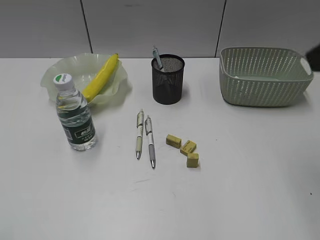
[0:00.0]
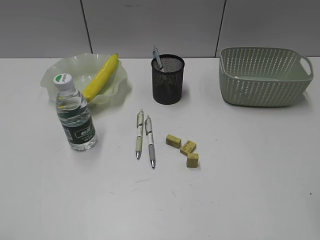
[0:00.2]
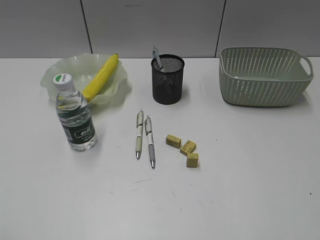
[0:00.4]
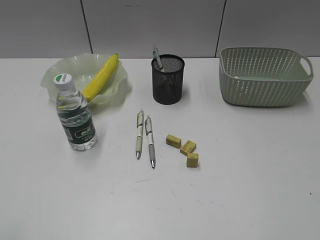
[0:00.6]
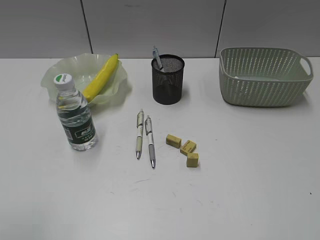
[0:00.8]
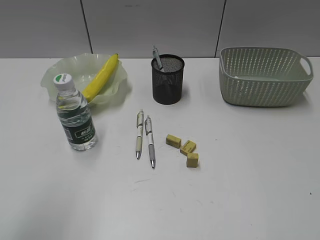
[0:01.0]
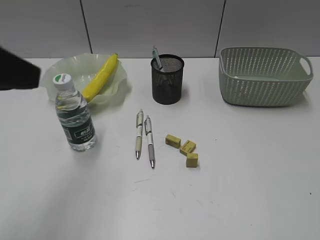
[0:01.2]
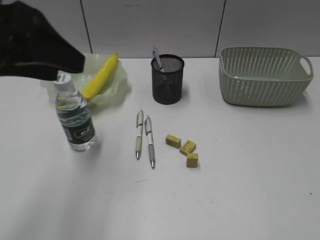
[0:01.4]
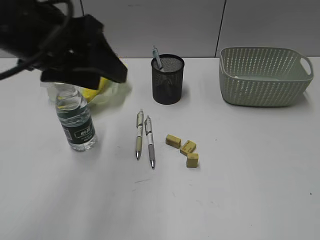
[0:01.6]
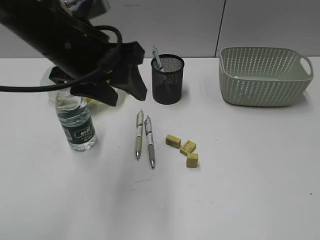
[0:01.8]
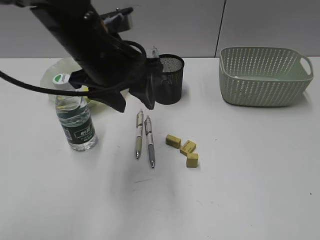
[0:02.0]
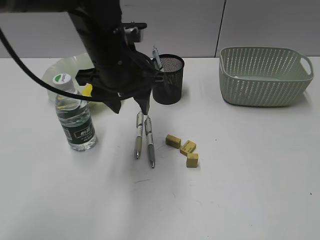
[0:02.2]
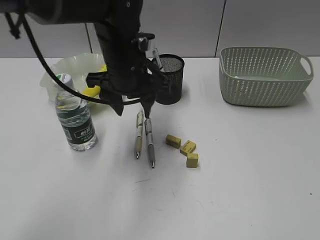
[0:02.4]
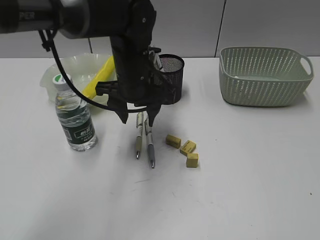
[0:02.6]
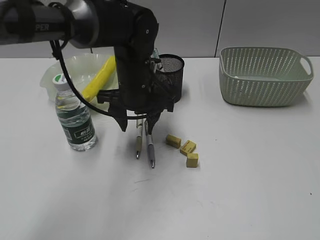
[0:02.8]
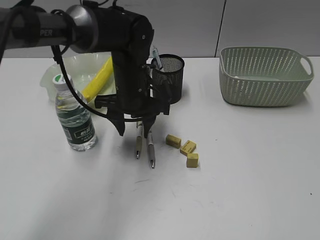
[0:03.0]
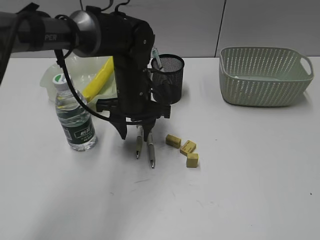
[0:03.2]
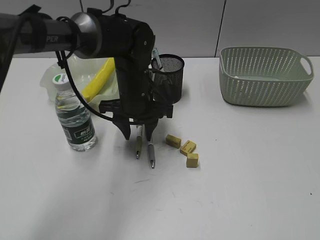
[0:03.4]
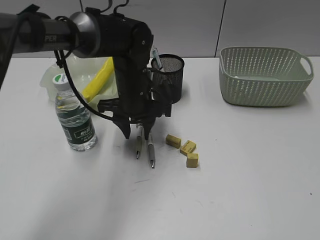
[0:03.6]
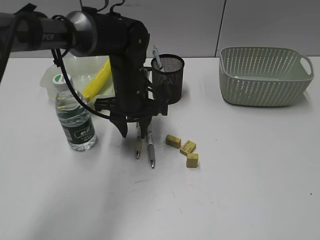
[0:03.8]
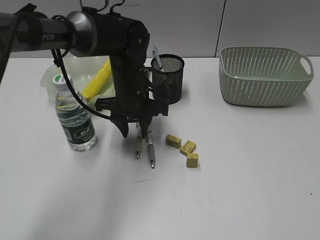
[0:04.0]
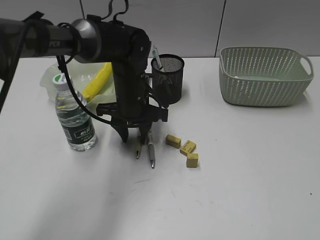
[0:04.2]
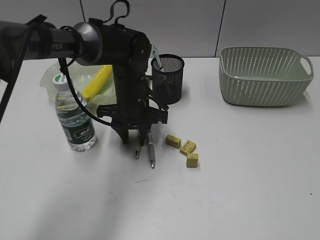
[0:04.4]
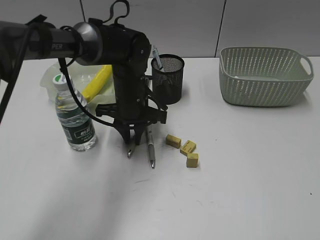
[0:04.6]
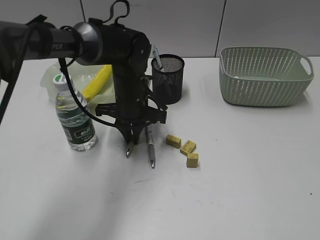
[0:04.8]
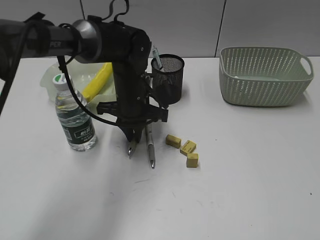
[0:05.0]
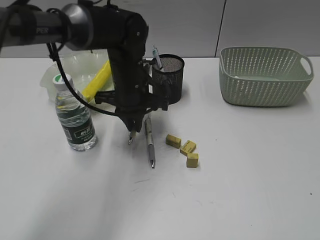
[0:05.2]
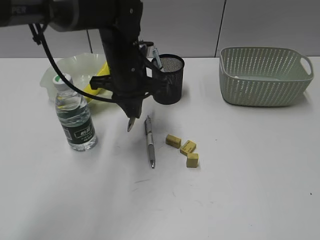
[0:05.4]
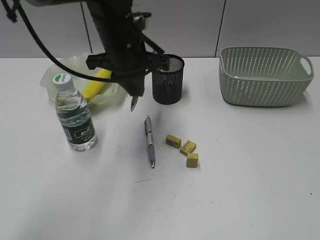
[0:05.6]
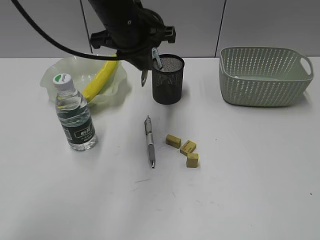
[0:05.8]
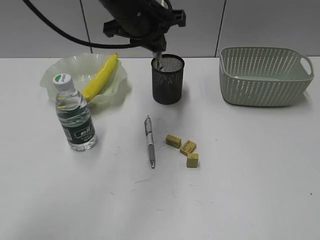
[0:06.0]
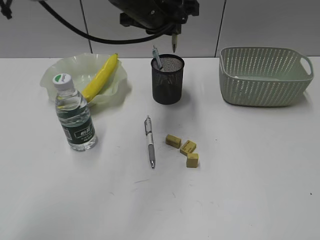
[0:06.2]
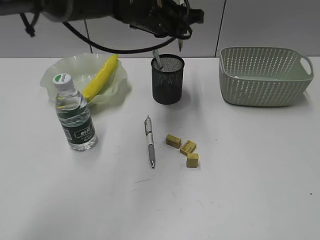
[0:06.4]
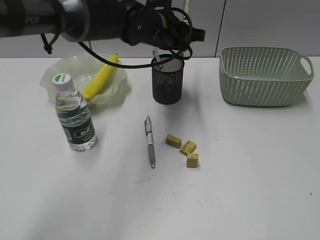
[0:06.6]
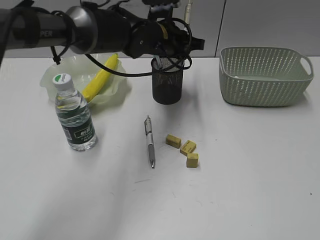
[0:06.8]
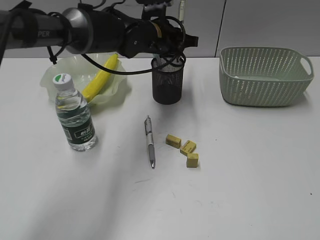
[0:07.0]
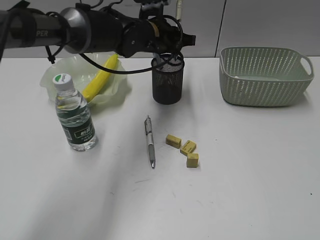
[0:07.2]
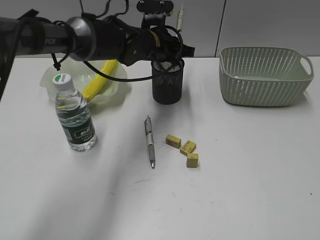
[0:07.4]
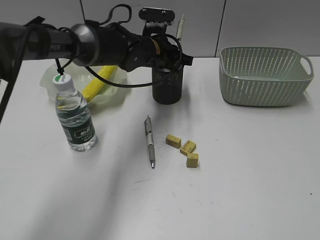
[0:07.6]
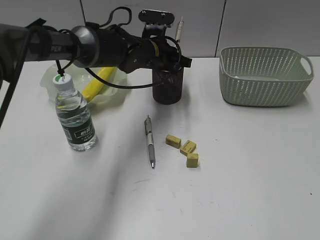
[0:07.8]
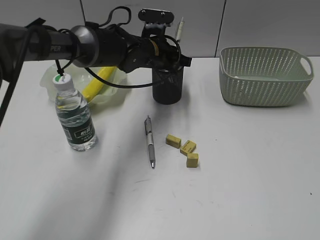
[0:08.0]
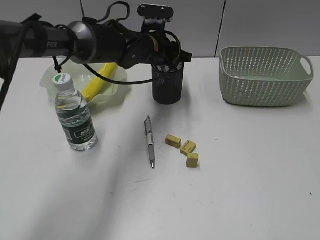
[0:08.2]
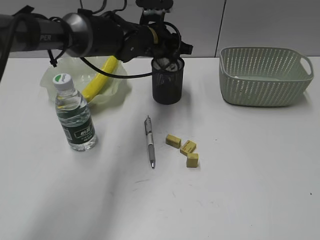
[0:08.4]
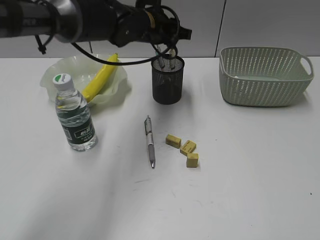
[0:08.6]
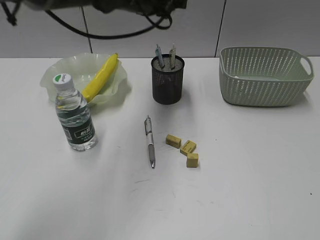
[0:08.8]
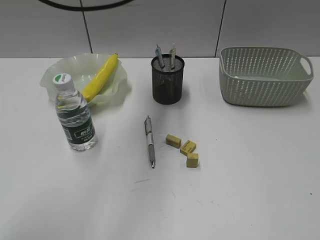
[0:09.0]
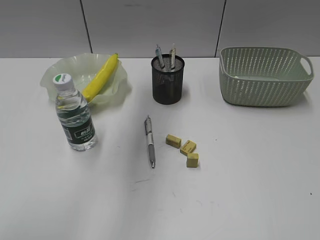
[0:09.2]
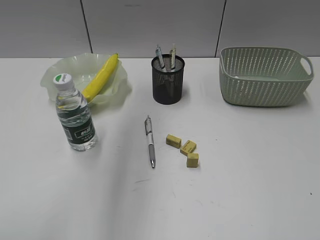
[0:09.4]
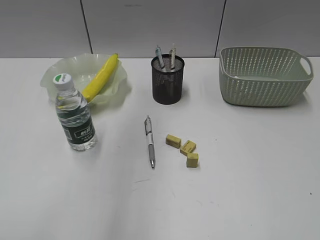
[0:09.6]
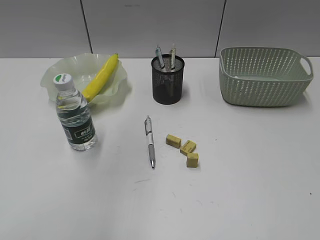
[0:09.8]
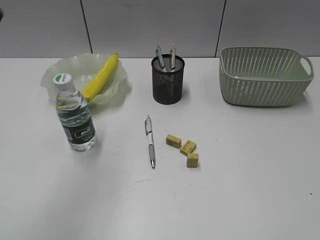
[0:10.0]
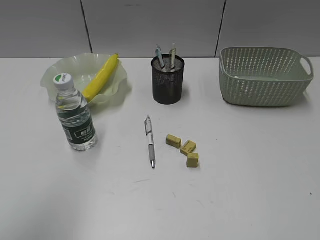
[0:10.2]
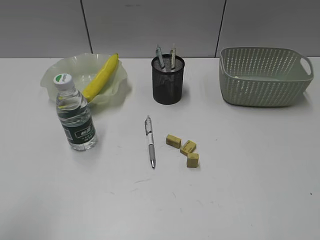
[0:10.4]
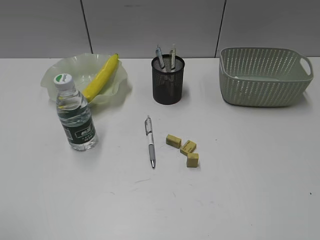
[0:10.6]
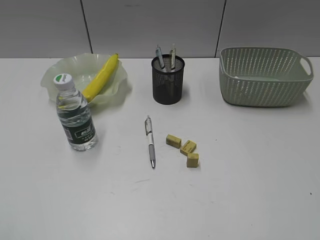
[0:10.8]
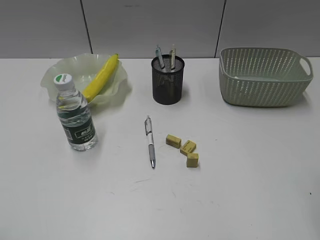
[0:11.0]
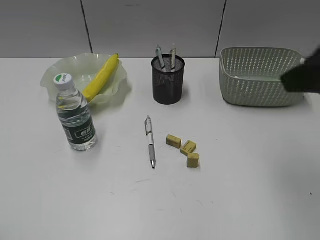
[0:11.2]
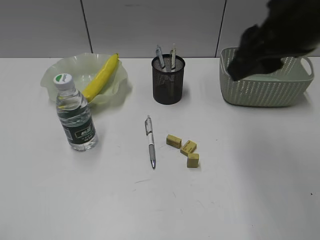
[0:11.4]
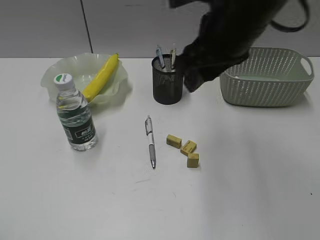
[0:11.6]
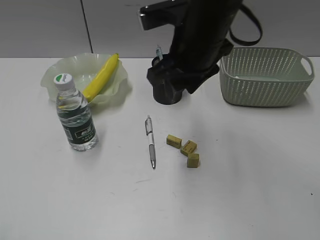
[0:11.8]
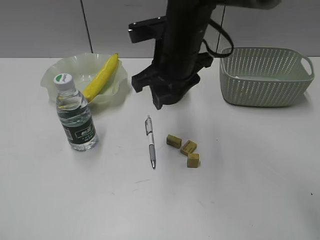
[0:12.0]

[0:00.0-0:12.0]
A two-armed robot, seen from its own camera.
Step, 0:00.0 to 0:04.8: Grasp the yellow pen with left gripper.
Step, 0:05.0 to 0:08.4: Place the yellow pen in pen holder with left gripper.
0:00.0 to 0:01.6: The left gripper moves forward and to the right, some 30 cm. The right gripper goes about 20 cm backward, to the right and downward.
0:01.6 to 0:03.0: The left gripper travels downward, forward and to the right by about 25 cm.
0:03.0 to 0:04.4: The grippers move only a little.
0:04.4 to 0:06.0: The left gripper heads upward, covering approximately 15 cm, and closes its fingers.
0:06.0 to 0:07.6: The left gripper goes about 15 cm downward and forward.
0:07.6 to 0:09.0: The left gripper is displaced upward by about 15 cm, and opens up.
0:09.0 to 0:10.4: The left gripper heads backward and to the left, covering some 40 cm.
0:10.4 to 0:12.0: The left gripper heads backward, downward and to the left, covering roughly 10 cm. Meanwhile the right gripper goes some 40 cm forward and to the left.

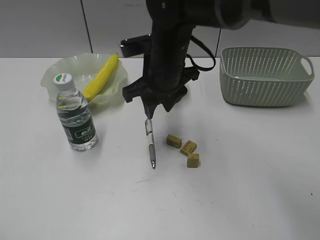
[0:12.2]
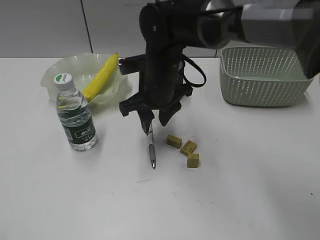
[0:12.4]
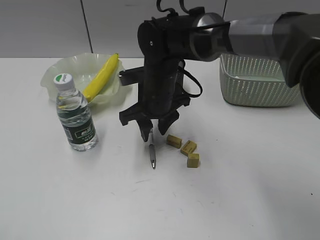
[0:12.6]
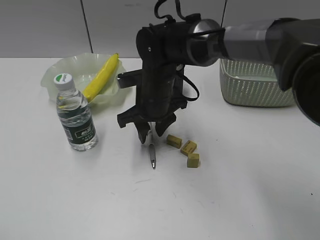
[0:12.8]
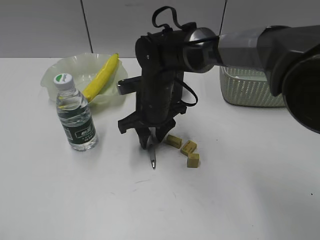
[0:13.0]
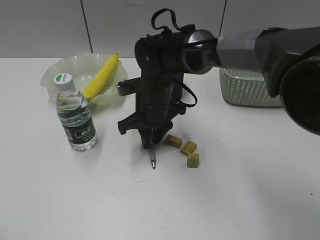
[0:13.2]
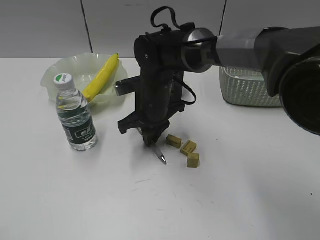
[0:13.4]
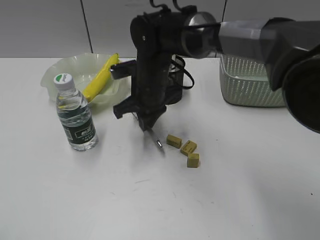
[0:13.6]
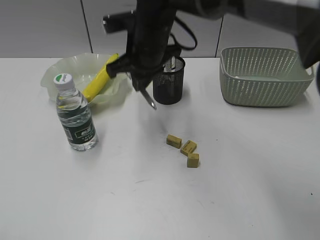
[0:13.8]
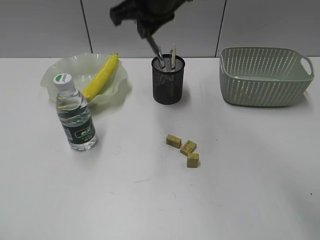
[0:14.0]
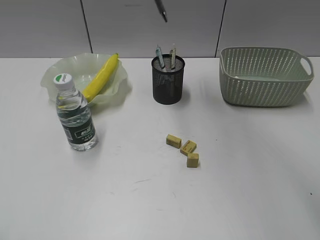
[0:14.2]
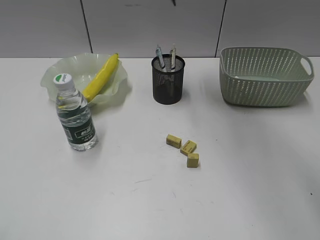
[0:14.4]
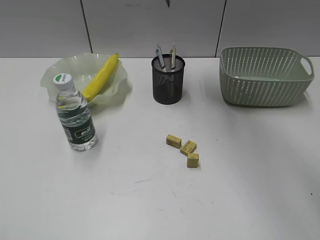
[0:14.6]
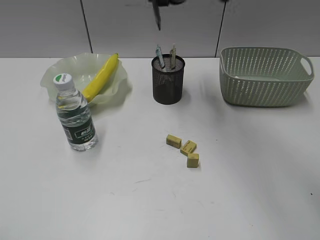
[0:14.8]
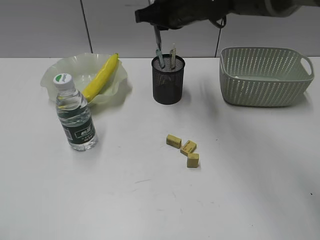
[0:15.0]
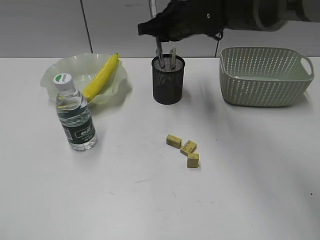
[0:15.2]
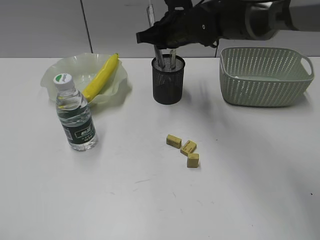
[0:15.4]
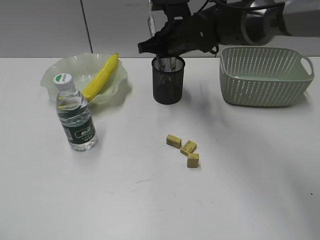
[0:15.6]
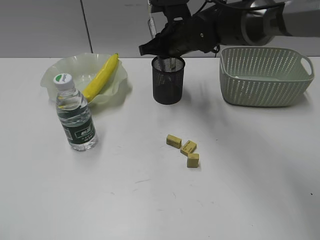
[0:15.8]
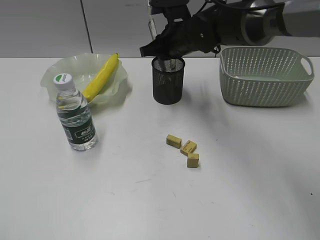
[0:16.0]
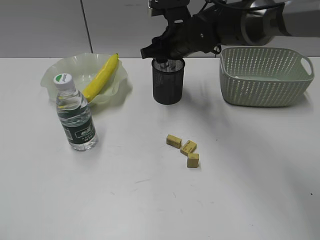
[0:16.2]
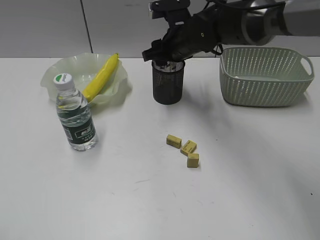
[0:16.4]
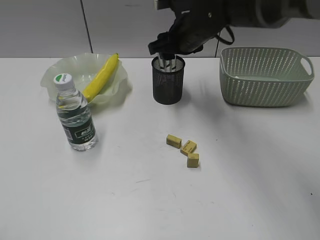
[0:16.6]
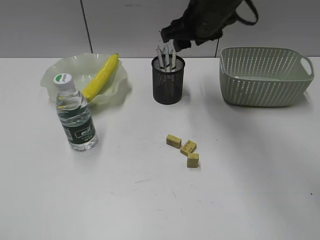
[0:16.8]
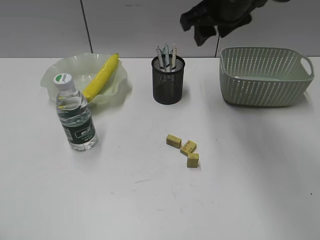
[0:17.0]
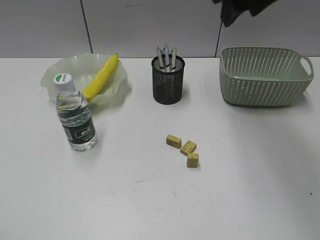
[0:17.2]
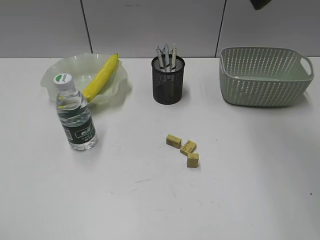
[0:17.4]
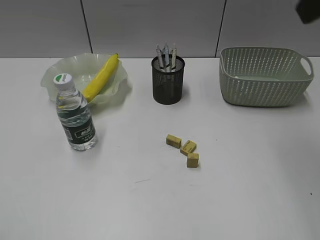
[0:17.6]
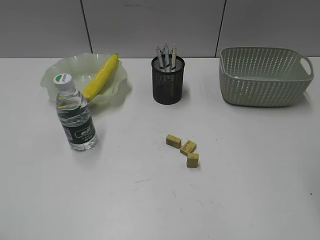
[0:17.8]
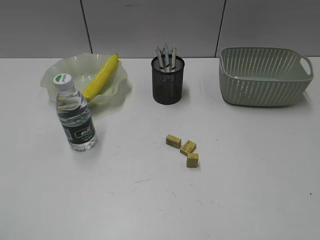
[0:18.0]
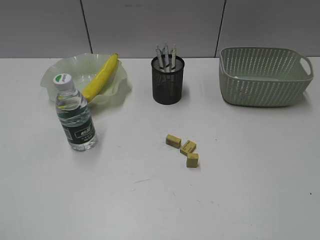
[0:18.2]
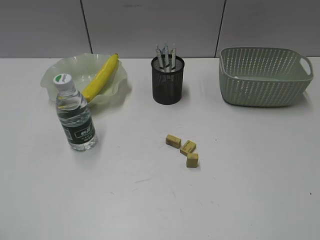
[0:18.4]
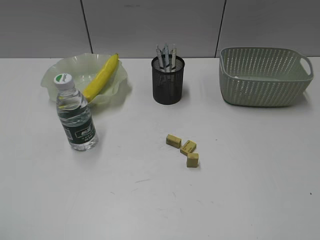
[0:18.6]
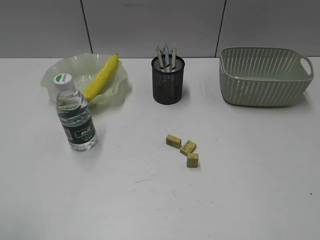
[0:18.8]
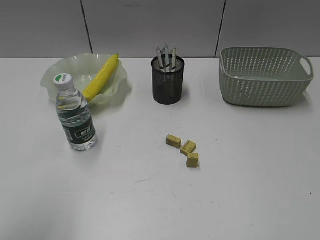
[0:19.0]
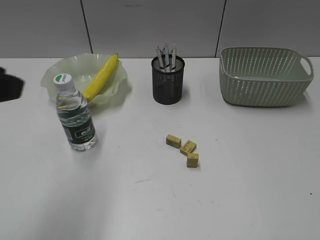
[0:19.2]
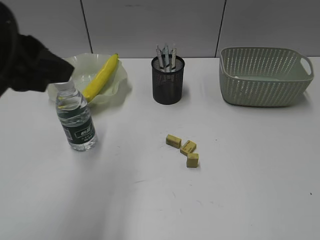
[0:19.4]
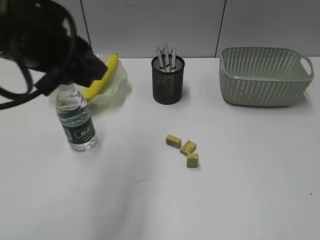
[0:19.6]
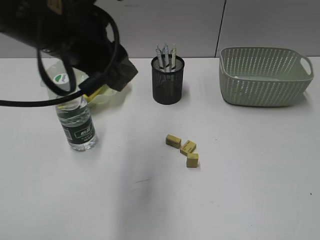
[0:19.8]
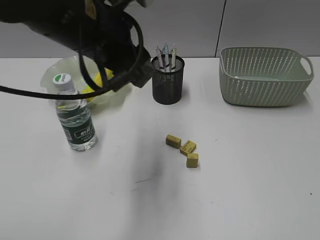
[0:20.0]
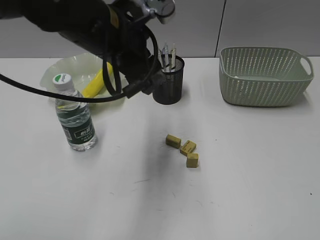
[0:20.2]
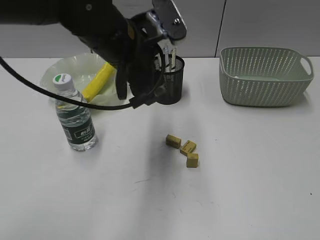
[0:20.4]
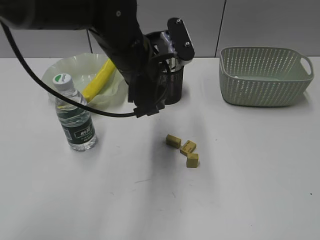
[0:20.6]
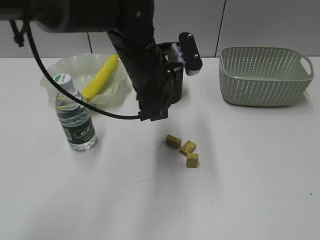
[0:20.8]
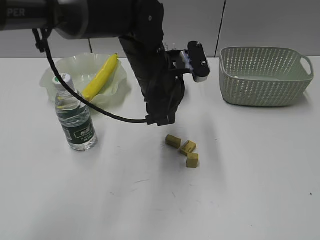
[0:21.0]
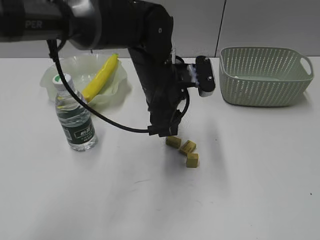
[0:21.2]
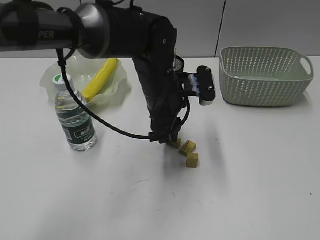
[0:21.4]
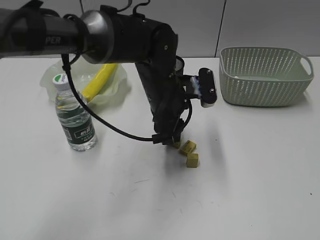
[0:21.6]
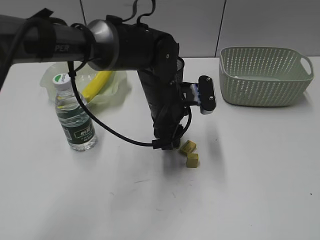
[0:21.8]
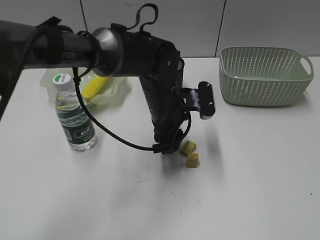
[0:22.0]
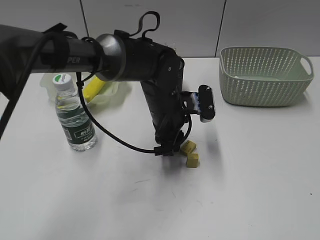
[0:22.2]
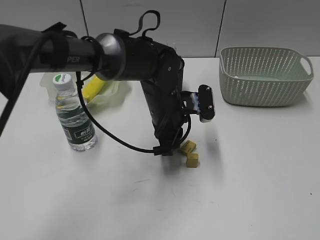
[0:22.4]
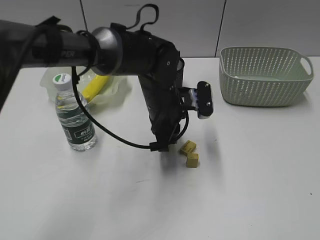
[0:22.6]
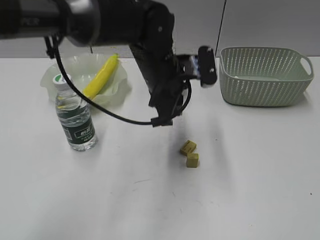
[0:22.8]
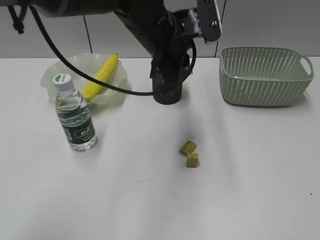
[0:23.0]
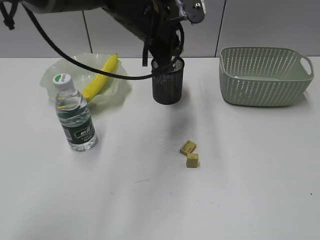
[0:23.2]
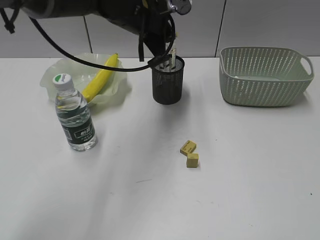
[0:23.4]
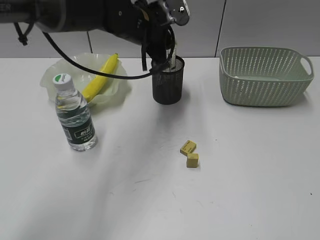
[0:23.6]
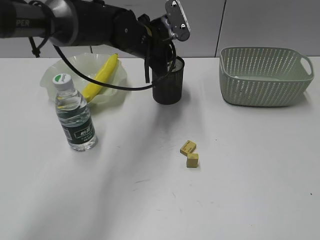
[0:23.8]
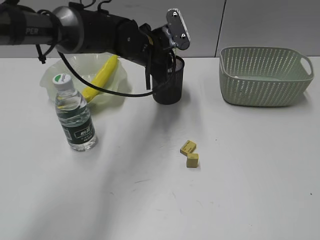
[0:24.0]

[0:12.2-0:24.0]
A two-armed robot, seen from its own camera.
Step, 0:13.6 to 0:16.6: Place the gray pen in pen holder with right gripper.
Step, 0:16.8 to 0:22.4: Grasp the eraser with left gripper.
0:12.2 to 0:13.6: The right gripper heads downward, covering approximately 5 cm, and closes.
0:13.6 to 0:15.2: The right gripper moves upward, forward and to the right, some 15 cm.
0:15.2 to 0:16.6: The right gripper opens its fingers.
0:16.6 to 0:18.2: The right gripper shifts roughly 50 cm backward and to the right.
0:18.2 to 0:19.6: The right gripper shifts by approximately 5 cm, while the left gripper shifts about 30 cm forward and to the right.
0:19.6 to 0:21.0: The left gripper is displaced to the right, forward and downward by roughly 20 cm.
0:21.0 to 0:22.6: The left gripper travels downward by approximately 5 cm, and closes its fingers.
0:22.6 to 0:24.0: The left gripper shifts about 10 cm forward.
